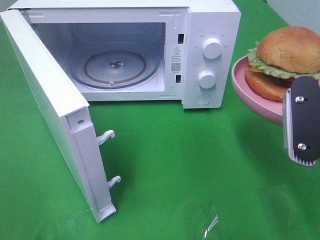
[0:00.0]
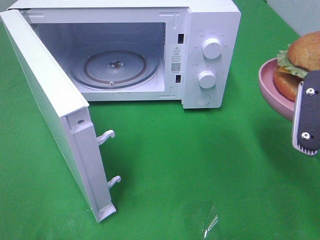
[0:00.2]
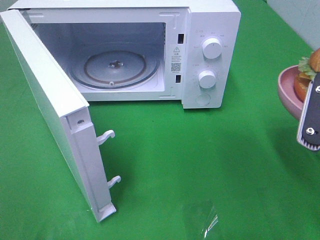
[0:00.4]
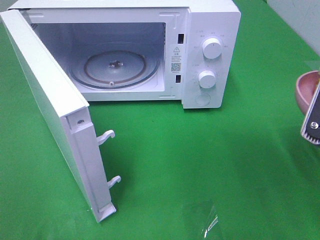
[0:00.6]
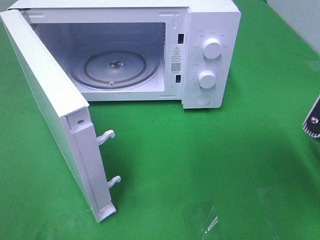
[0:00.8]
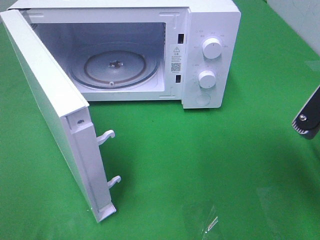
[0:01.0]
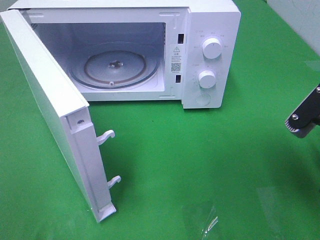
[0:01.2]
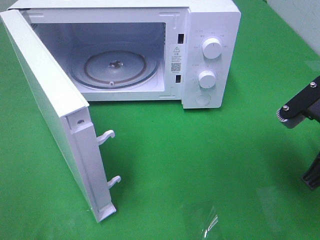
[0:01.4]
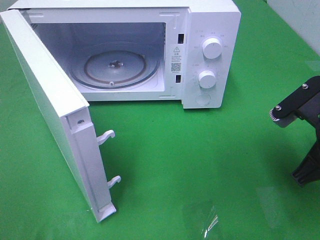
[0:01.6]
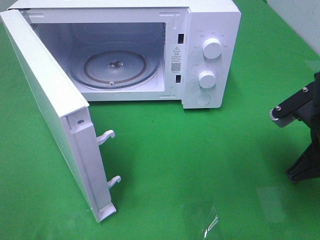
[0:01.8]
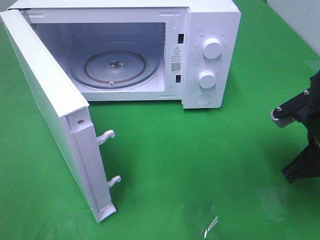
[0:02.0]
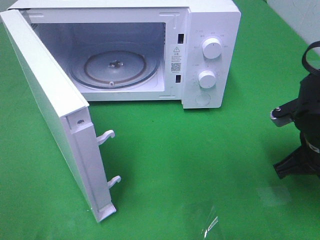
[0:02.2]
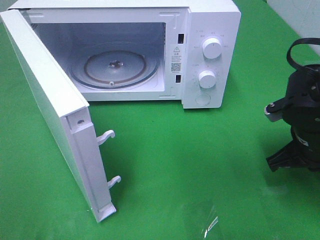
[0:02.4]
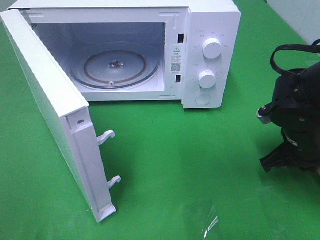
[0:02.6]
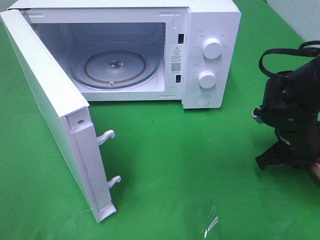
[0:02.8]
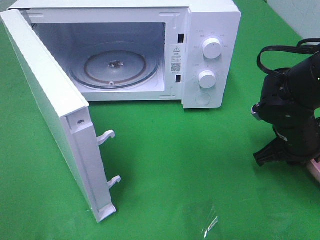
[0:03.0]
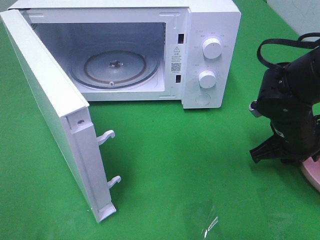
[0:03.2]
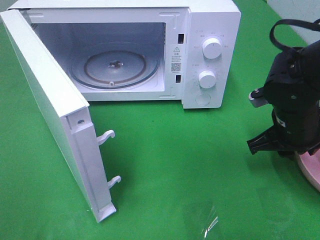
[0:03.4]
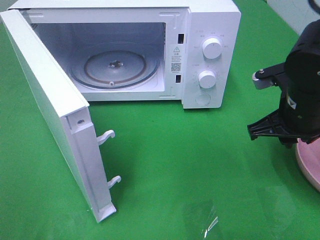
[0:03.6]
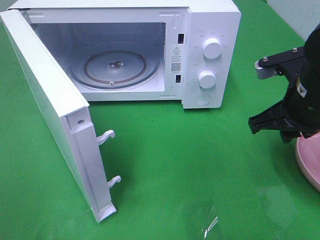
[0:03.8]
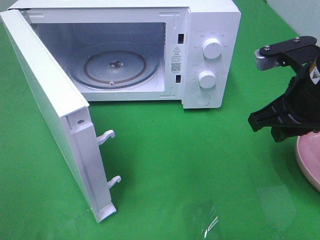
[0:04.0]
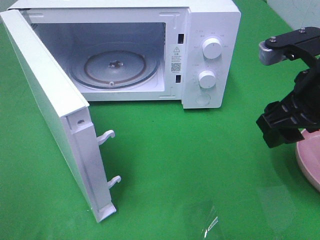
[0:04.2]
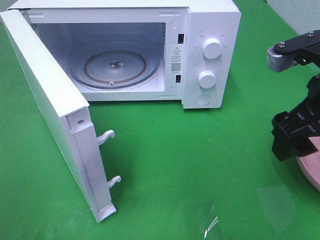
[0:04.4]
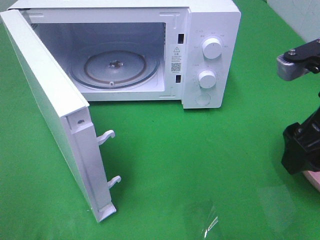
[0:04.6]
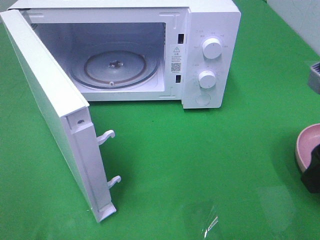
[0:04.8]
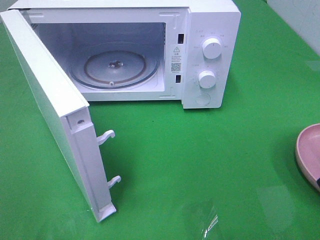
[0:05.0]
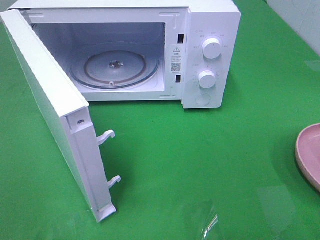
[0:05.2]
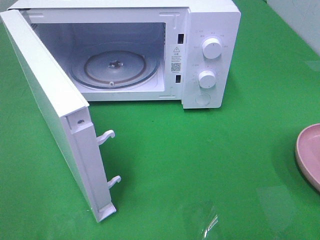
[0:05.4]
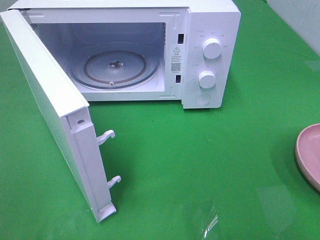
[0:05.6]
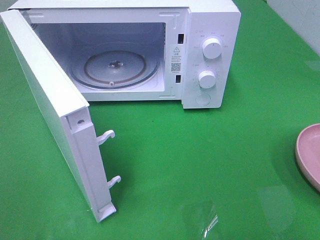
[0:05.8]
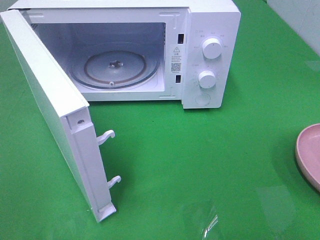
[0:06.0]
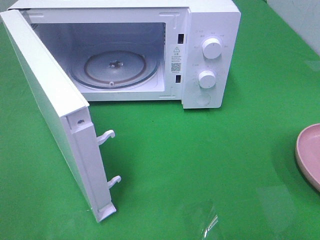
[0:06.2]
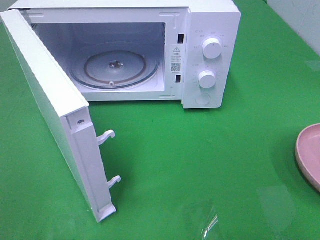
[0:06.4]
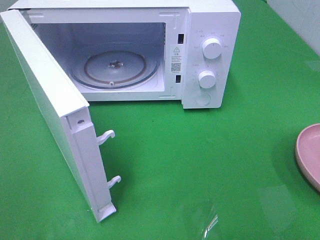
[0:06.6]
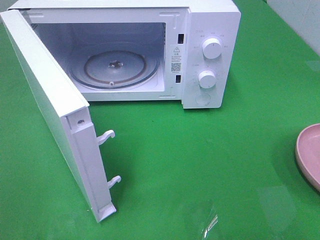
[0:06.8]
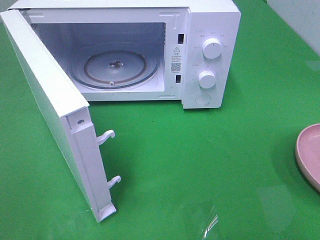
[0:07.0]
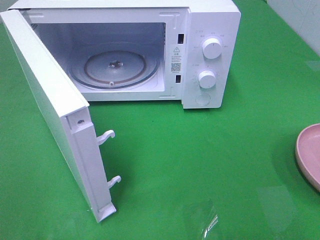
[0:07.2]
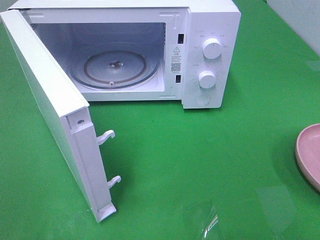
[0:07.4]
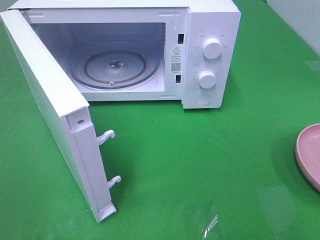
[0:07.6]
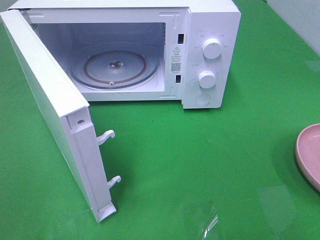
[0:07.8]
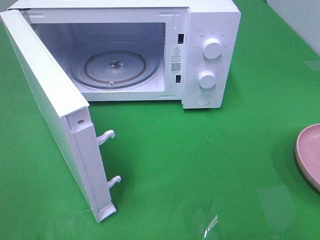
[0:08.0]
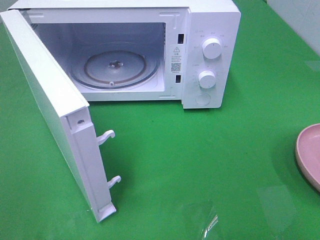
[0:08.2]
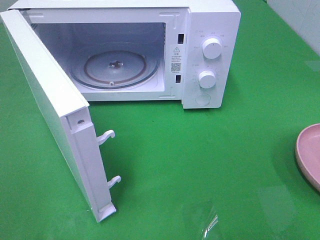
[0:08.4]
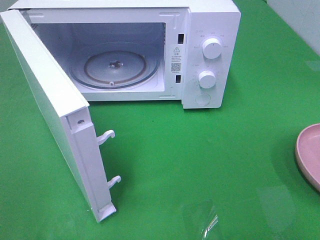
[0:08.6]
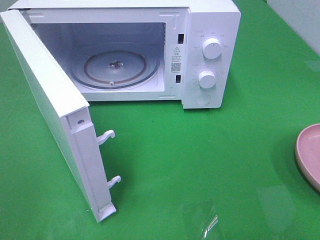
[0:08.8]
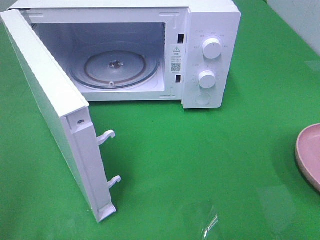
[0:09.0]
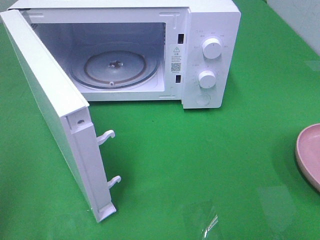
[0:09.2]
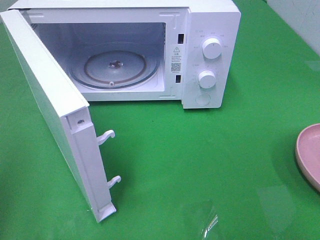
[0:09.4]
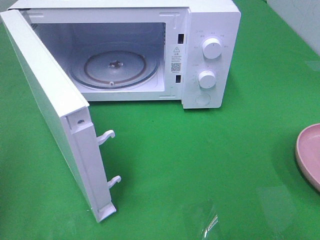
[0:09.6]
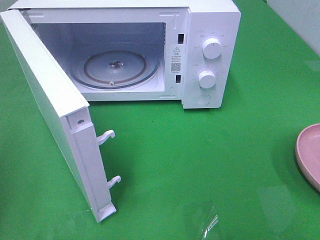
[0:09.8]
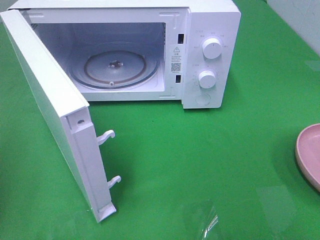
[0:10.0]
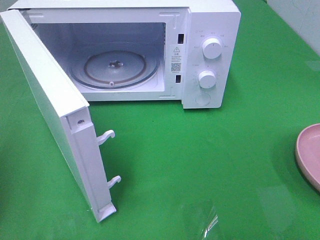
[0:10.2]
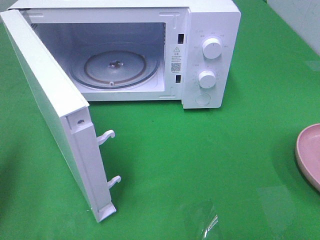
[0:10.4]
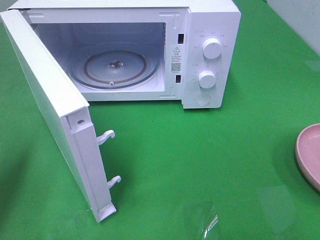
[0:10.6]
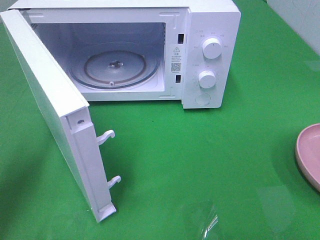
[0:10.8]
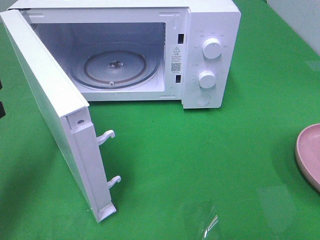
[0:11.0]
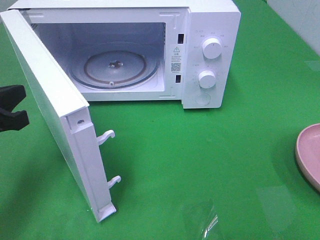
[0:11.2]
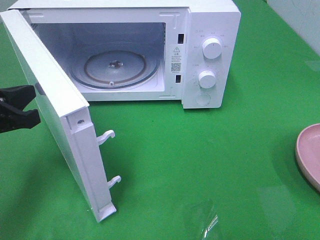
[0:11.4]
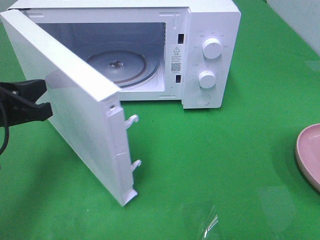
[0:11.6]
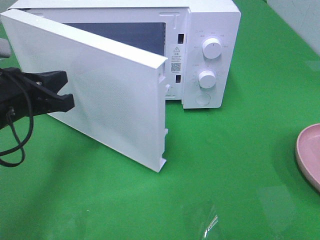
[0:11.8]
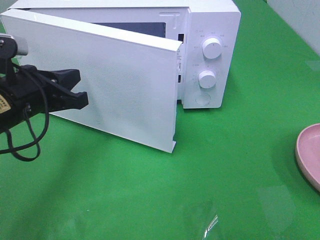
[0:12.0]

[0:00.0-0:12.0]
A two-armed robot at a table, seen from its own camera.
Task of the whole recording: Heat the burger.
Step, 0:00.0 to 0:03.8: Right hand: place the plate on the table.
0:00.0 to 0:01.6: The right gripper heads downward, covering approximately 5 cm.
0:01.6 to 0:03.0: The right gripper shifts approximately 10 cm forward and downward.
0:03.0 to 0:04.4: The right gripper travels upward and backward by roughly 15 cm, and opens its fingers.
0:04.4 to 0:06.0: The right gripper moves backward and to the right, roughly 20 cm.
0:06.0 to 0:07.6: Neither gripper changes place.
0:09.0 to 0:10.4: The left gripper shifts approximately 15 cm forward and downward, and closes.
0:10.4 to 0:12.0: The left gripper shifts roughly 15 cm to the right, forward and downward.

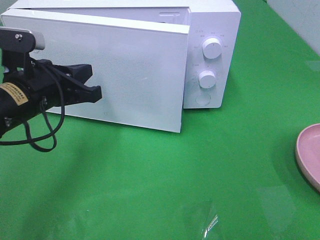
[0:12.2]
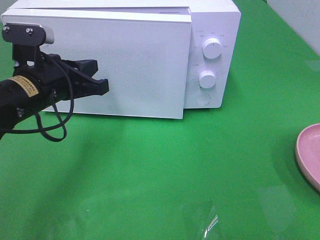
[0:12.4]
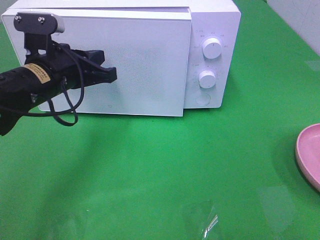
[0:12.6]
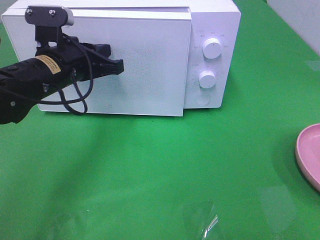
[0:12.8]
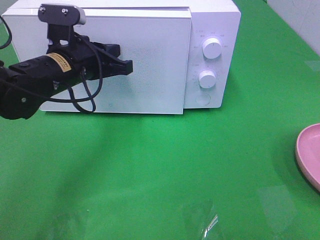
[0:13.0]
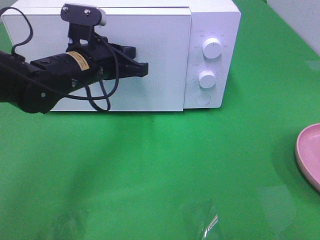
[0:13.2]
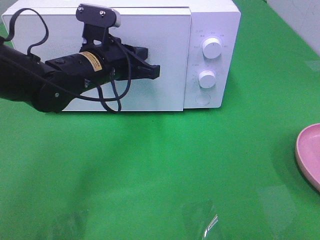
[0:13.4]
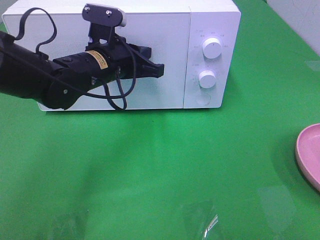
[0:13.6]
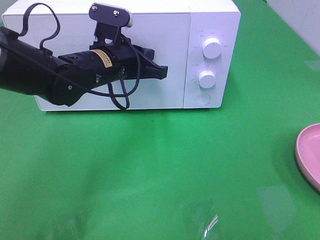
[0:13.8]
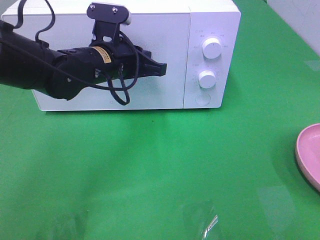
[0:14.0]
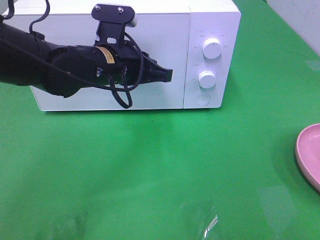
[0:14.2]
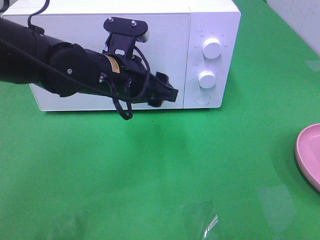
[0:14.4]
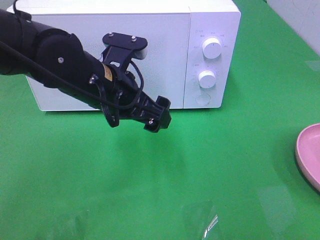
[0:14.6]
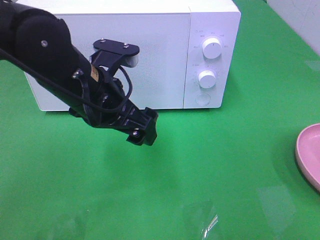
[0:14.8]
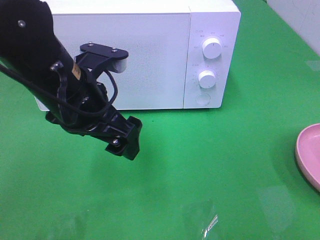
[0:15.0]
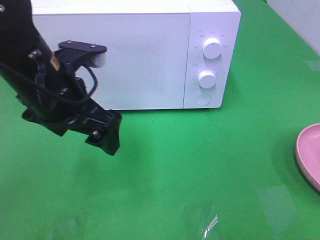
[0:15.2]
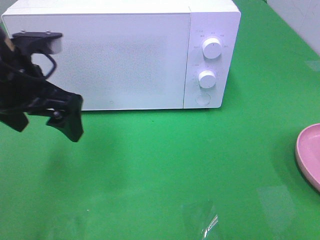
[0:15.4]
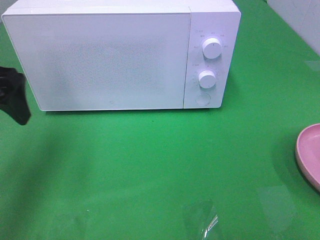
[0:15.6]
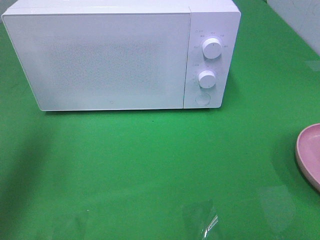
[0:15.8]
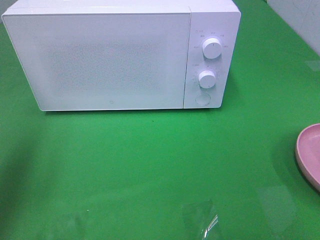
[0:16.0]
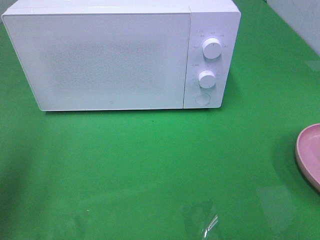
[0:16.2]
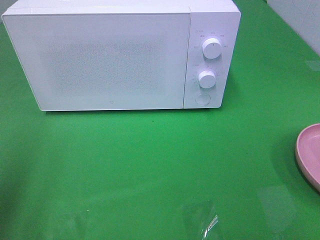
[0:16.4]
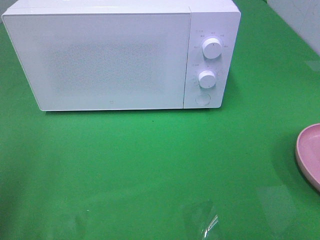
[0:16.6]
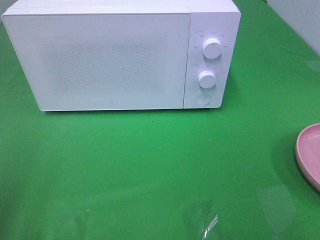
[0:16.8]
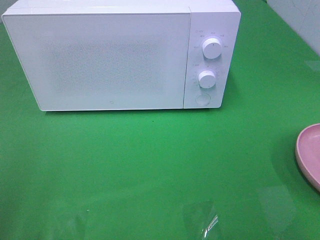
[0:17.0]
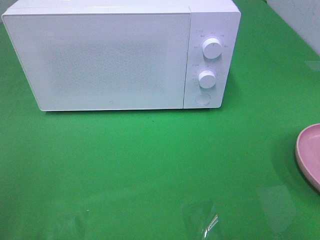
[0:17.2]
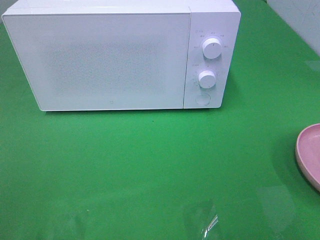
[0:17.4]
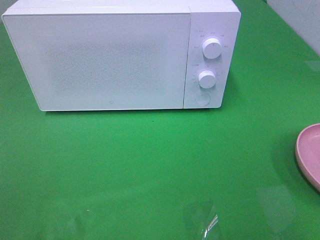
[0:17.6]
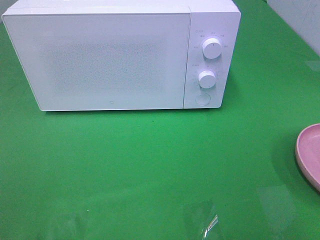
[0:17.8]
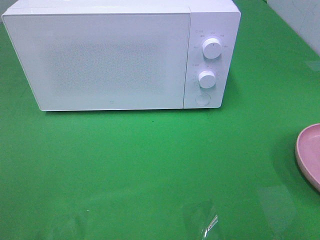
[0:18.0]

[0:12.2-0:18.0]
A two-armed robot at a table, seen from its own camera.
Task of the whole recording: Heat the burger.
Step, 0:12.2 to 0:14.2: Left hand: close the microwave door.
0:12.2 to 0:13.6: The left gripper shifts approximately 10 cm to the right and forward.
0:13.6 to 0:15.0: The left gripper heads backward, covering roughly 10 cm, and opens.
0:15.0 to 0:16.6: The left gripper shifts approximately 25 cm to the left and backward.

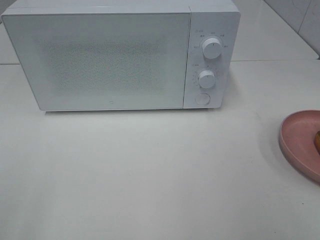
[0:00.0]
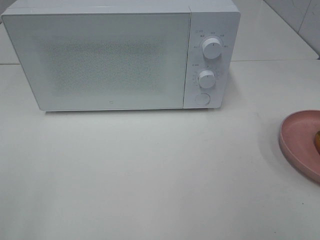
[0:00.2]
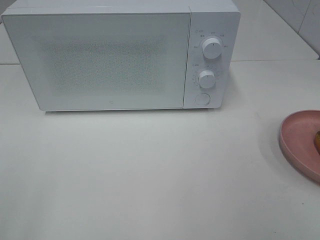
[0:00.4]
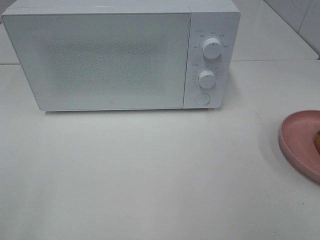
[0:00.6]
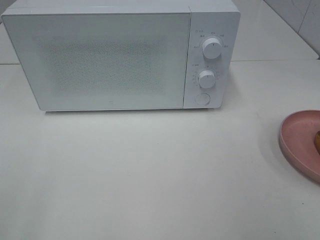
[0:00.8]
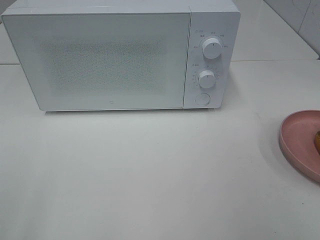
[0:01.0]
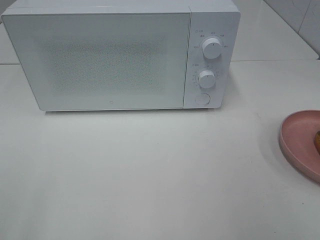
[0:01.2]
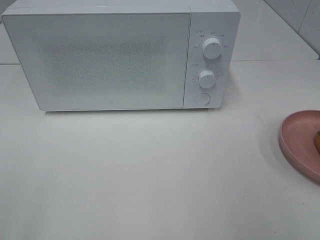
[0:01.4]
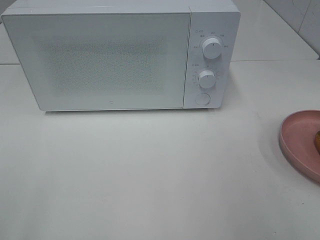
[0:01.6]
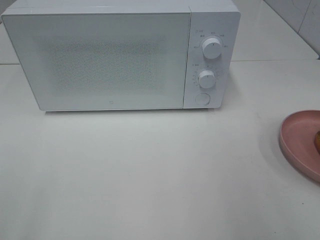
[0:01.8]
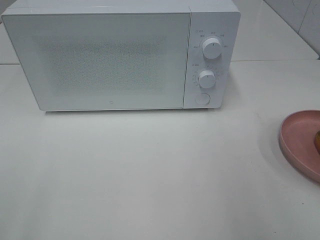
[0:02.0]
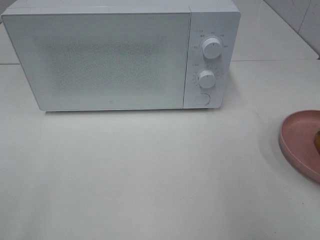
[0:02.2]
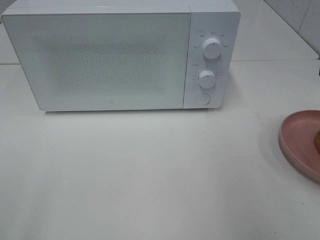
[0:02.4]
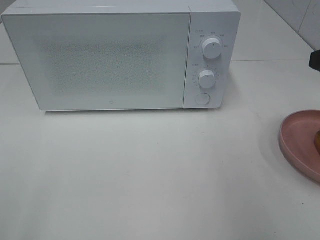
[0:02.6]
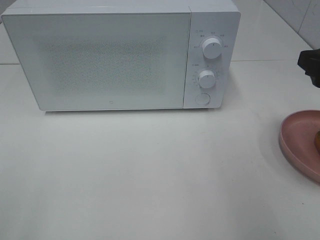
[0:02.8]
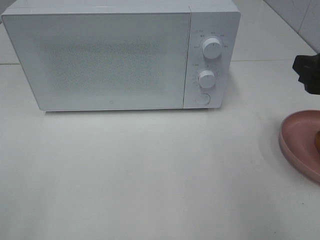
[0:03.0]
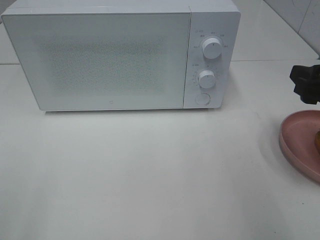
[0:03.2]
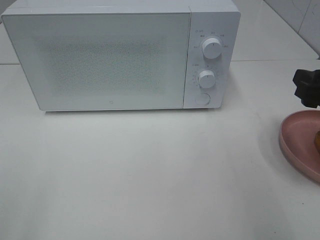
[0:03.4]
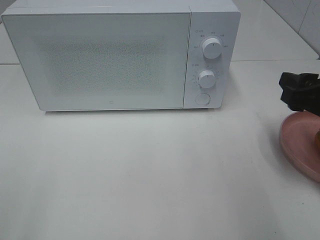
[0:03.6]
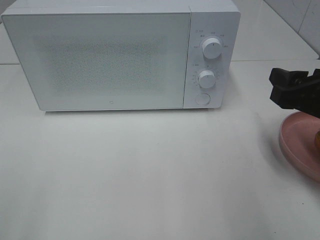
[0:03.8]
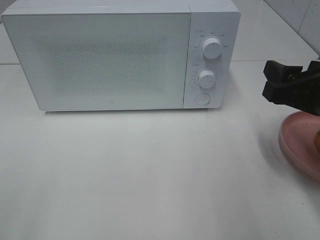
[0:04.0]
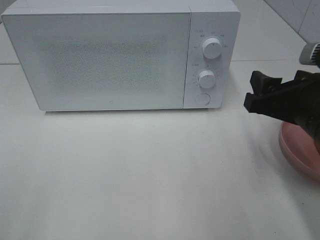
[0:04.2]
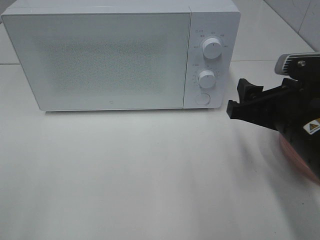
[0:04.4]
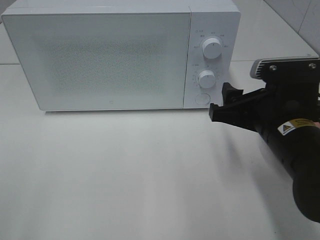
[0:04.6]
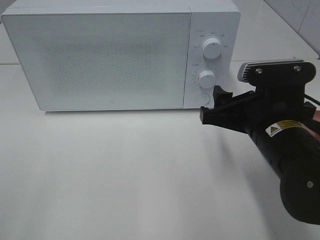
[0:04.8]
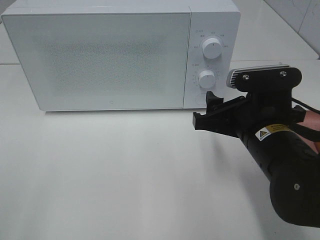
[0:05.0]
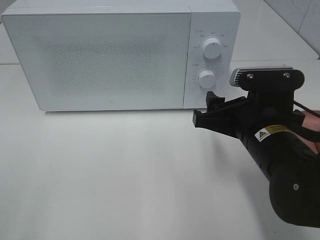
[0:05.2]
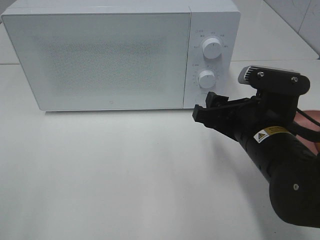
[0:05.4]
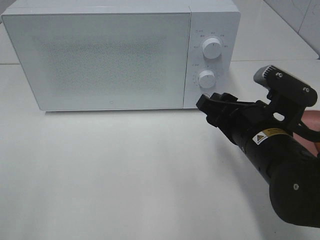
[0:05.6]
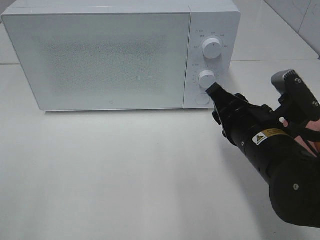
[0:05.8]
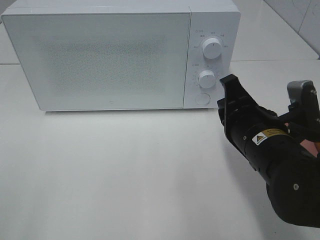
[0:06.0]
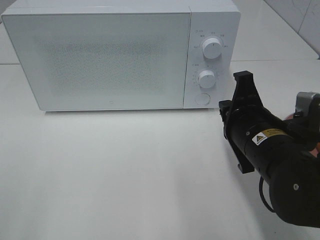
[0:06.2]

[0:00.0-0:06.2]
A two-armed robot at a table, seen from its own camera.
Task of the whole recording: Heat the burger.
0:01.6 to 0:03.2: The right gripper shifts about 15 cm forward and downward.
0:03.2 to 0:04.6: The right gripper travels to the left by roughly 10 cm.
0:04.6 to 0:06.2: The right gripper closes up.
